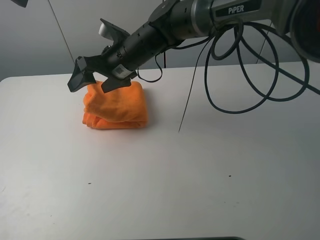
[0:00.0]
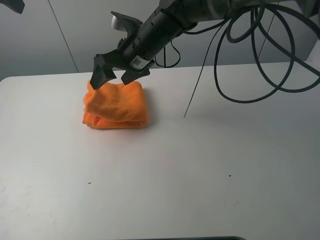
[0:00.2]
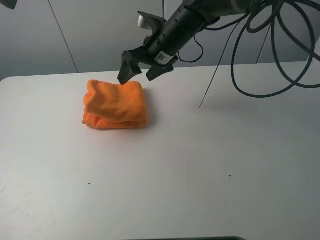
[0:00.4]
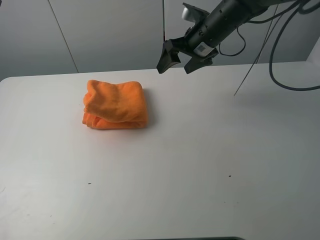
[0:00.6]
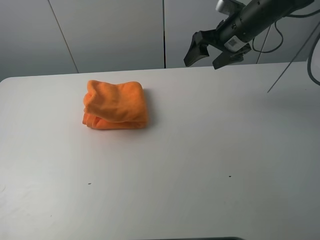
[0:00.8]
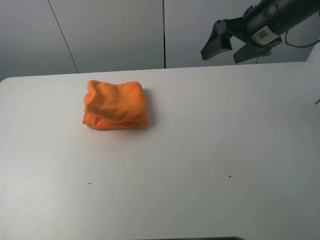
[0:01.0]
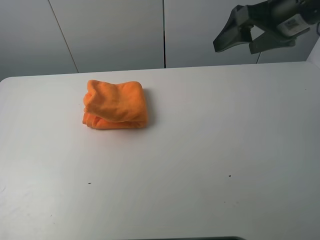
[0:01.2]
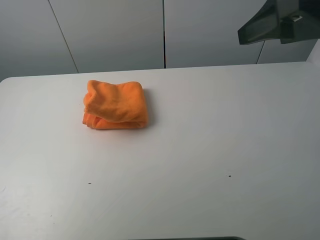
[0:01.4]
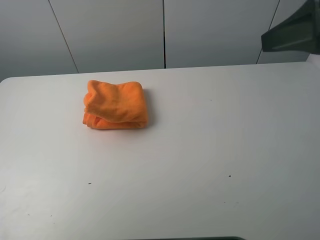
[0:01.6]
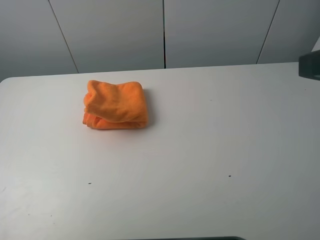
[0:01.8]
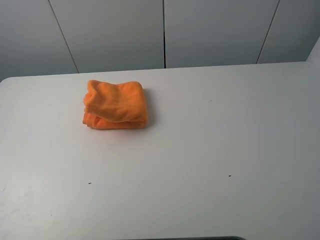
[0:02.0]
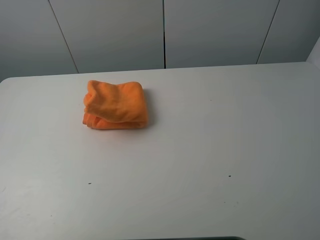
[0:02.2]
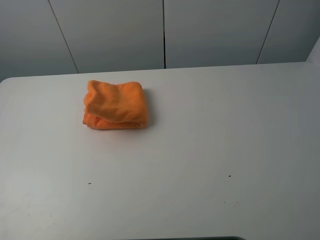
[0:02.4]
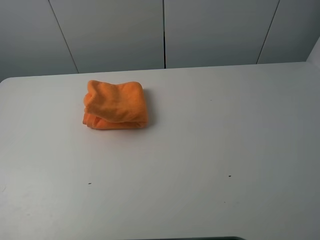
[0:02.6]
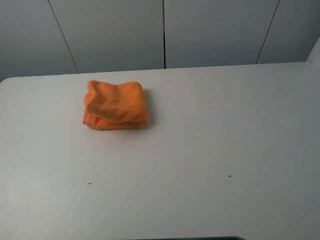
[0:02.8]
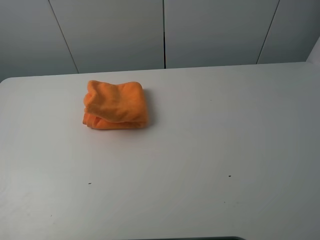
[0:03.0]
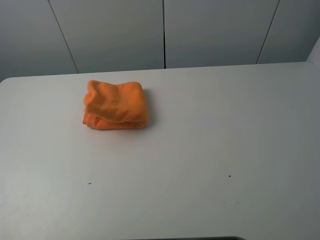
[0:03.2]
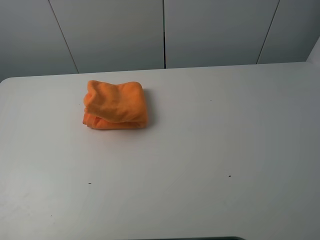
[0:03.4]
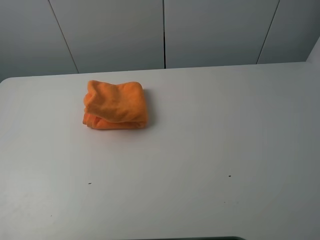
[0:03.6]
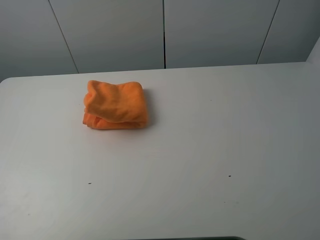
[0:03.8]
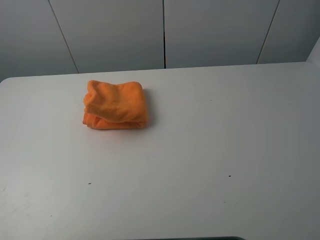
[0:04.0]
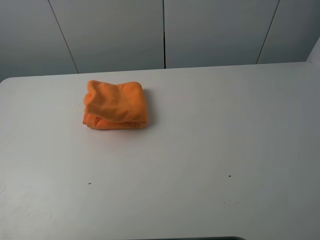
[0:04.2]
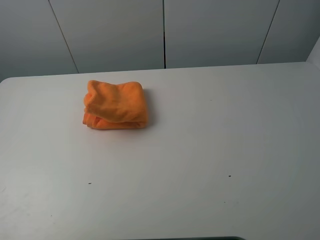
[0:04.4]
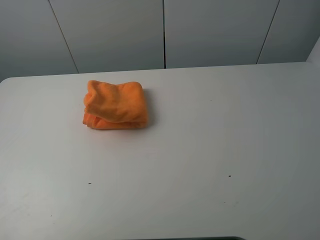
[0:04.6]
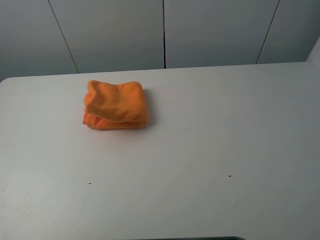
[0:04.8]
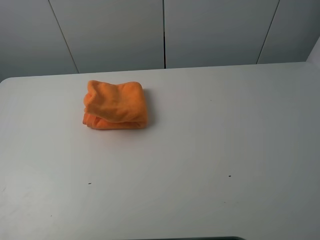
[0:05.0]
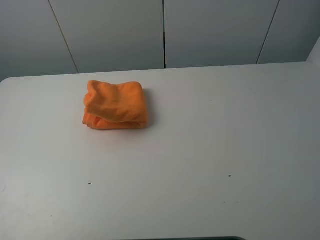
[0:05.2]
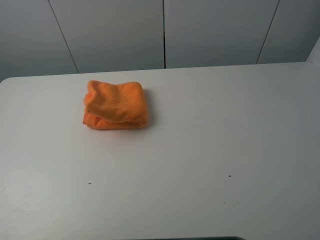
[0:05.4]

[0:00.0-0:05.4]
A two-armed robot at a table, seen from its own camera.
Task of the whole recording: fold the towels on the table.
0:00.0 to 0:01.4: The right gripper travels to the right, backward and upward by roughly 35 cm, while the left gripper is displaced backward by about 20 cm.
0:01.4 to 0:02.8: The right gripper is displaced backward by some 20 cm. Meanwhile the left gripper travels backward and downward by roughly 15 cm.
0:04.0 to 0:05.4: Both grippers stay about where they are.
